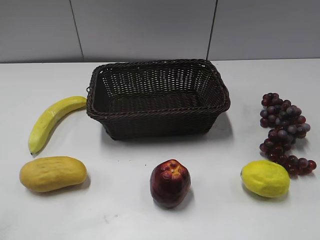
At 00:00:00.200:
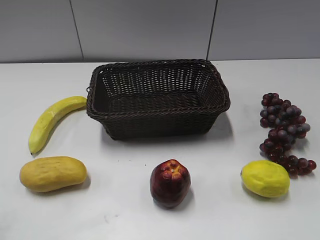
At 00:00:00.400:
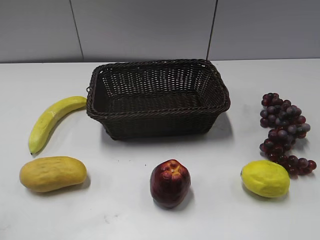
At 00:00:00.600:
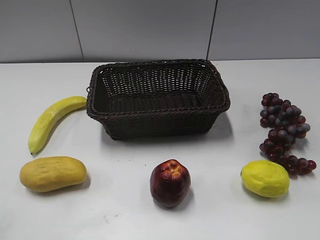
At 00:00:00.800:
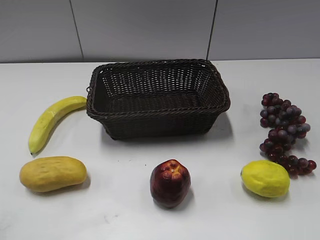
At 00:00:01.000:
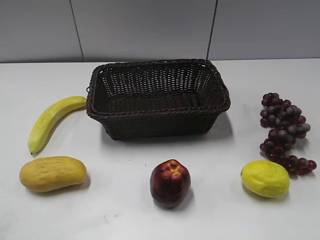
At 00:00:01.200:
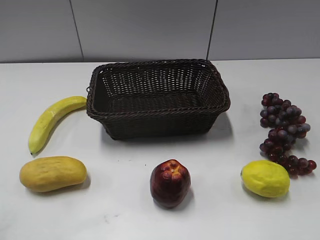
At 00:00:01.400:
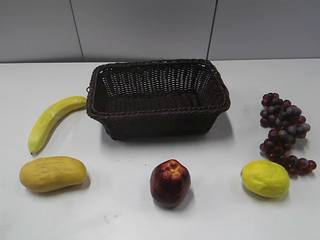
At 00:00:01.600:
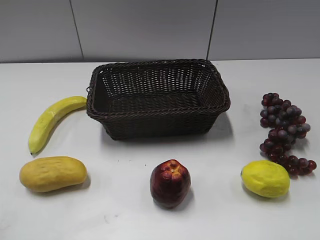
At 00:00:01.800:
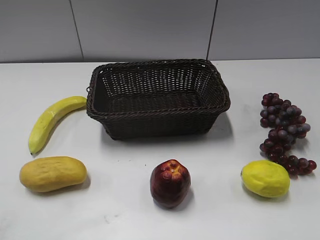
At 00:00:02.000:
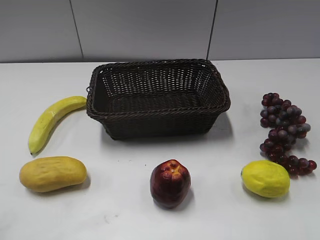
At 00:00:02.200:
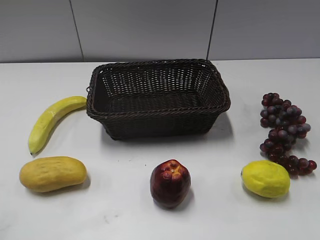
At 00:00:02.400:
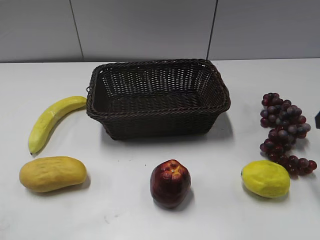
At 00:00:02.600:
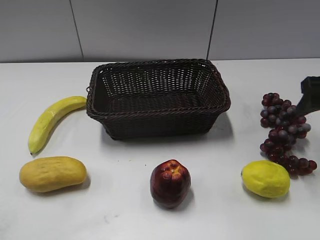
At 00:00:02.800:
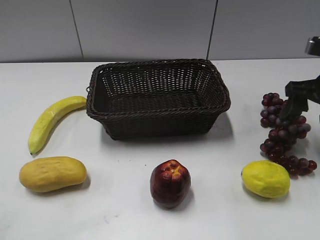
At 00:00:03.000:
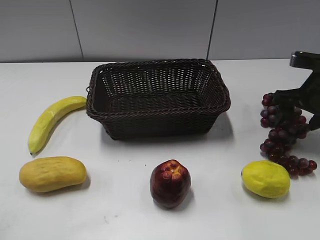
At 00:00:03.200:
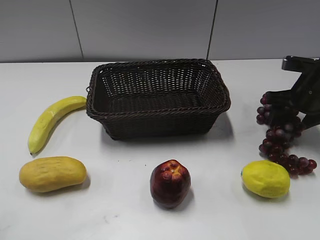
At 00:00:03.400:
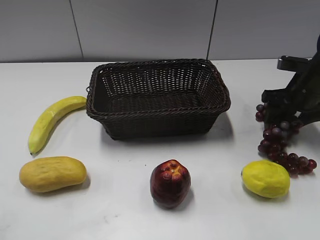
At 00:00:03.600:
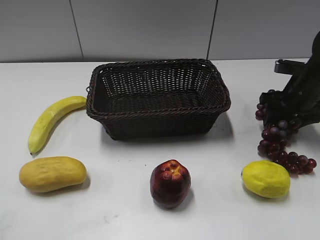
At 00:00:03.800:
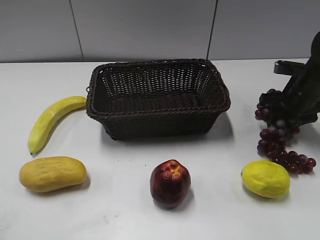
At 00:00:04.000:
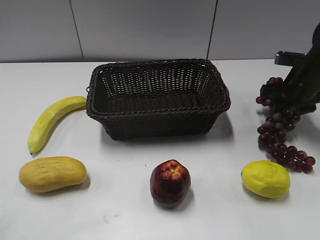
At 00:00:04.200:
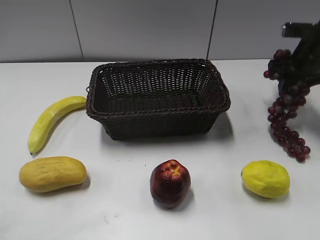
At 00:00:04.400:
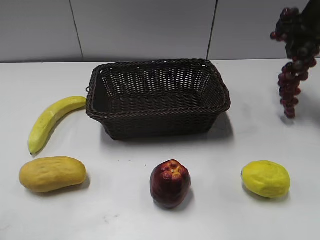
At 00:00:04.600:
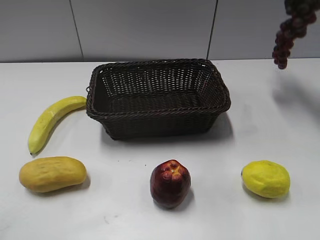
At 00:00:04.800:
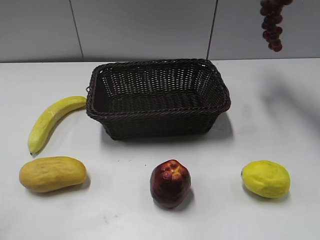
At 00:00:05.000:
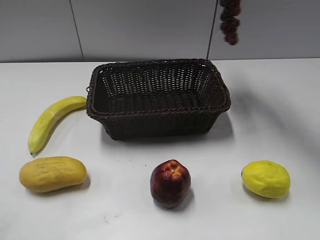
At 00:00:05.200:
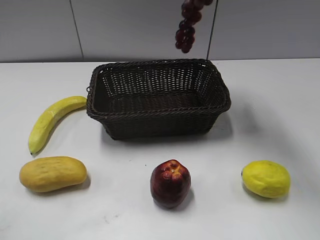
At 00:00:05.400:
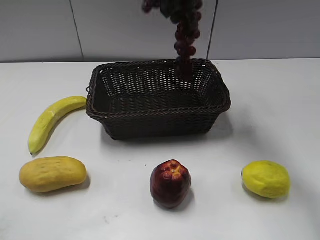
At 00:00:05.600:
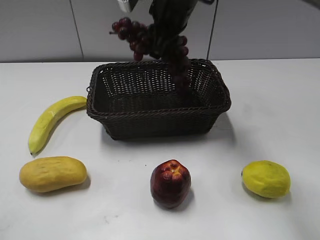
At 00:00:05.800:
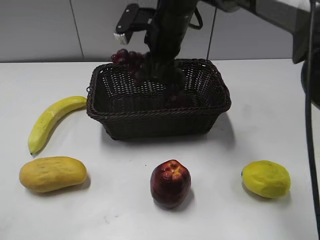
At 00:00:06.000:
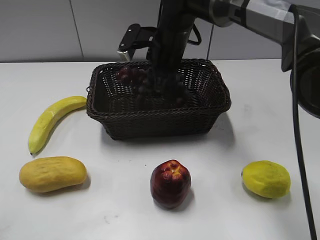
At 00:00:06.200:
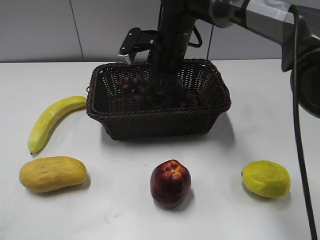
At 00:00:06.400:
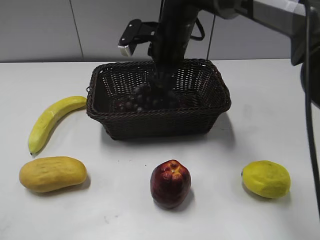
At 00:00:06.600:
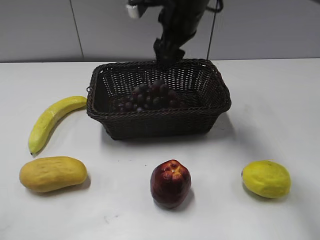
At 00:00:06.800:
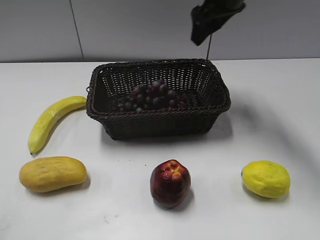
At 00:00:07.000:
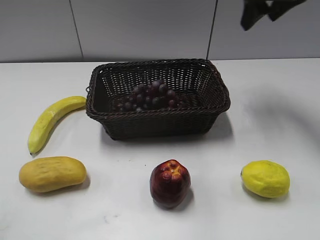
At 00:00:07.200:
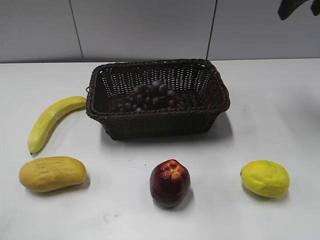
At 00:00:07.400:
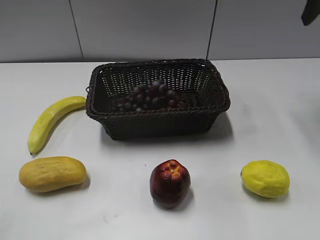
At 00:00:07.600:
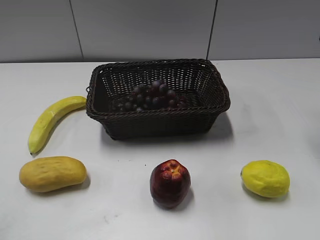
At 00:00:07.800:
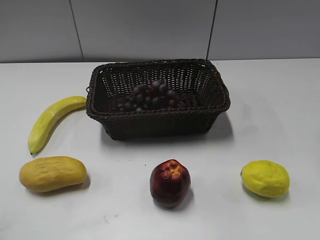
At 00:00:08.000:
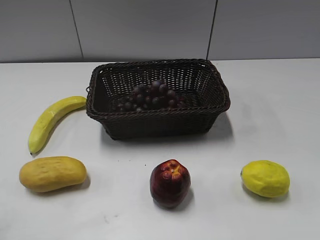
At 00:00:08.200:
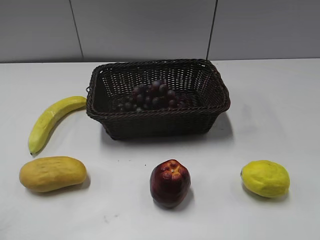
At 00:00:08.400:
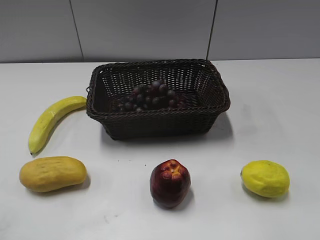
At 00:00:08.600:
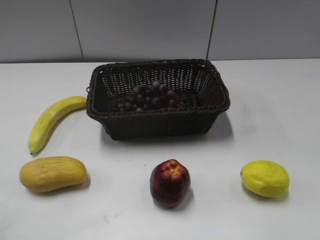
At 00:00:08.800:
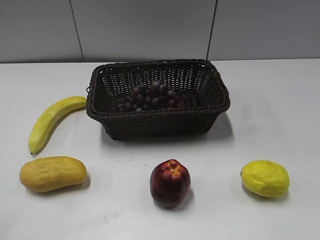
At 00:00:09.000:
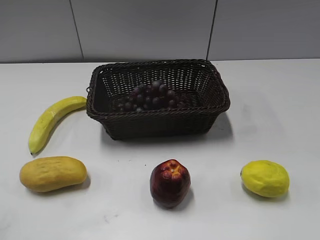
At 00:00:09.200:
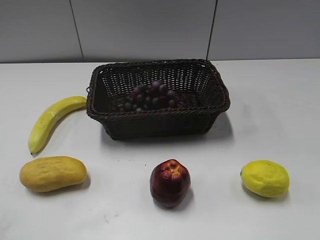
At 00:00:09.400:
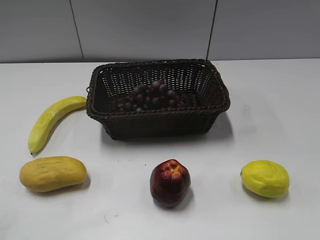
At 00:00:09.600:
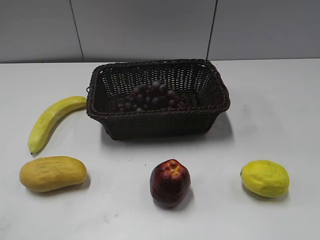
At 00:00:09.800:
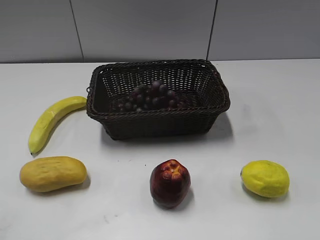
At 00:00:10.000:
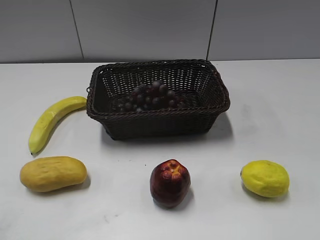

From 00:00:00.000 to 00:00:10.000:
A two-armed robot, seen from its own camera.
Step, from 00:00:02.400 to 00:00:03.600: Grasp the grape with right gripper.
Step, from 00:00:03.800 to 00:00:06.200: Place the grape in the basket with right gripper.
From 00:00:01.400 to 00:00:02.800: The right gripper is displaced forward by some 30 cm.
From 00:00:02.800 to 00:00:04.200: The right gripper goes roughly 10 cm forward, and closes up.
From 00:00:04.200 to 00:00:05.800: The right gripper shifts approximately 30 cm to the left.
From 00:00:05.800 to 00:00:07.200: The right gripper goes about 30 cm to the right and upward, and opens its fingers.
From 00:00:07.200 to 00:00:08.600: The right gripper moves backward, approximately 35 cm.

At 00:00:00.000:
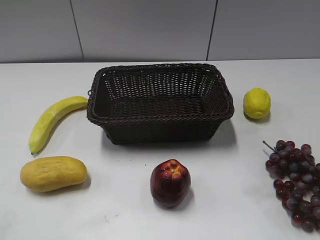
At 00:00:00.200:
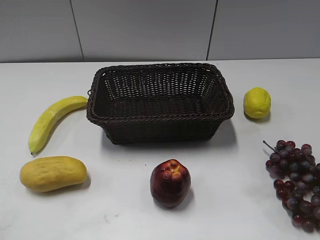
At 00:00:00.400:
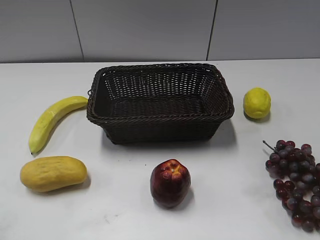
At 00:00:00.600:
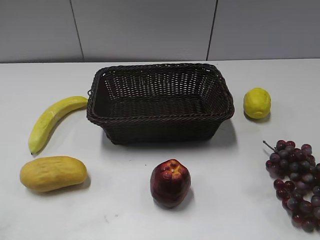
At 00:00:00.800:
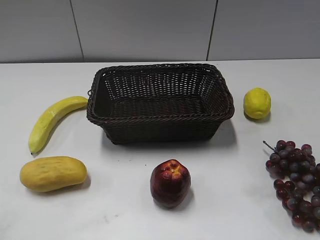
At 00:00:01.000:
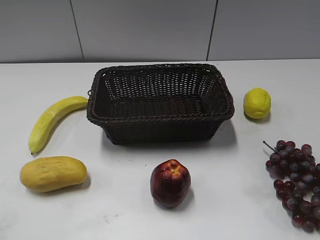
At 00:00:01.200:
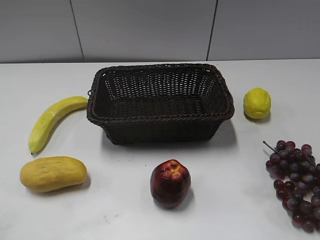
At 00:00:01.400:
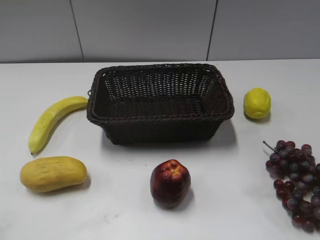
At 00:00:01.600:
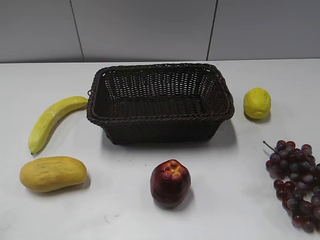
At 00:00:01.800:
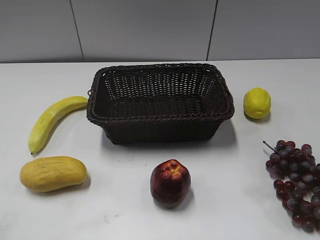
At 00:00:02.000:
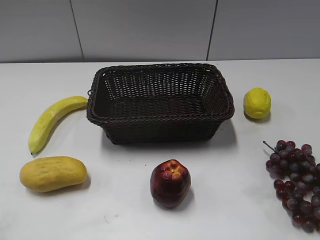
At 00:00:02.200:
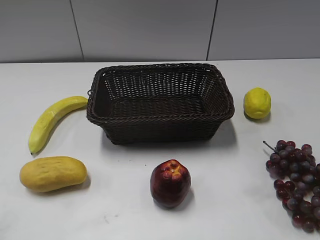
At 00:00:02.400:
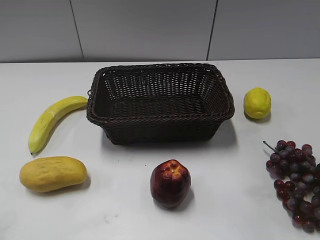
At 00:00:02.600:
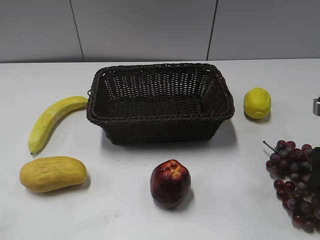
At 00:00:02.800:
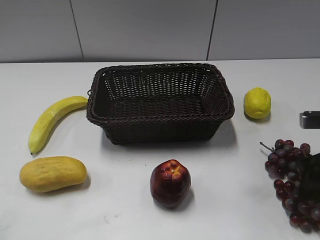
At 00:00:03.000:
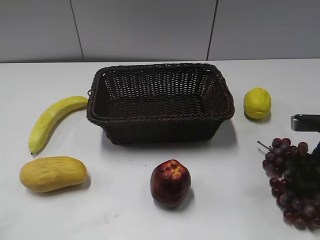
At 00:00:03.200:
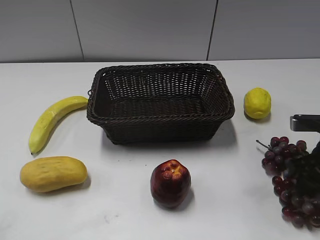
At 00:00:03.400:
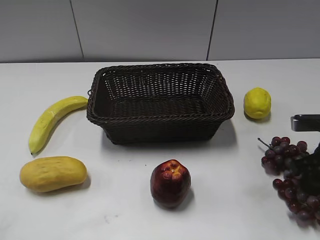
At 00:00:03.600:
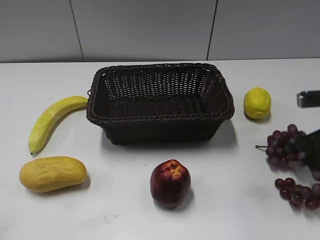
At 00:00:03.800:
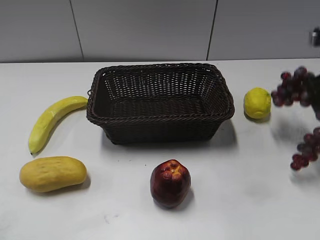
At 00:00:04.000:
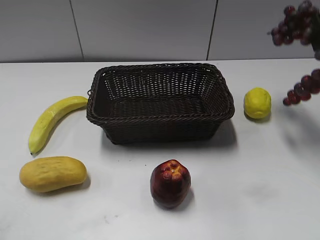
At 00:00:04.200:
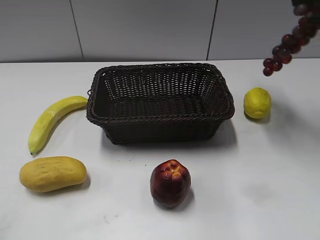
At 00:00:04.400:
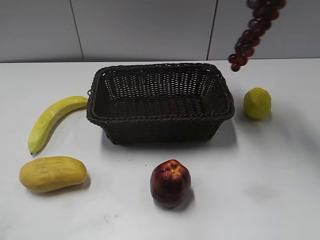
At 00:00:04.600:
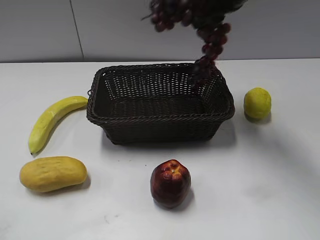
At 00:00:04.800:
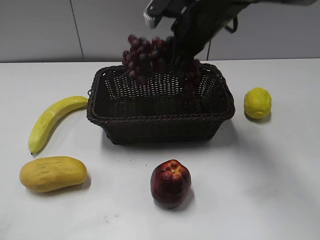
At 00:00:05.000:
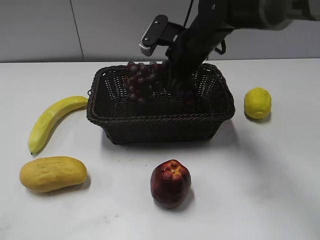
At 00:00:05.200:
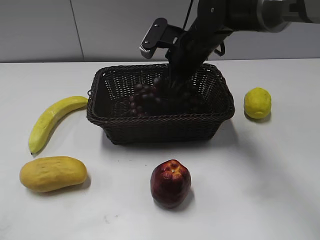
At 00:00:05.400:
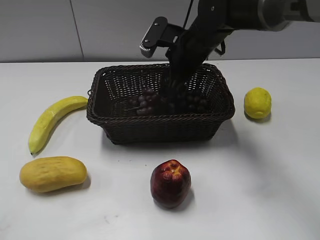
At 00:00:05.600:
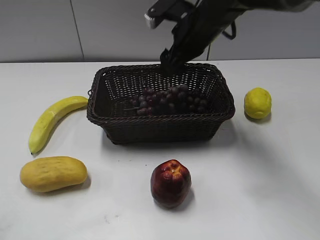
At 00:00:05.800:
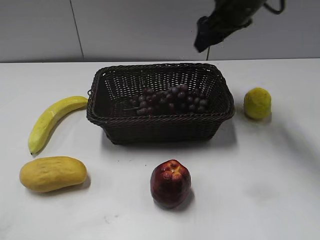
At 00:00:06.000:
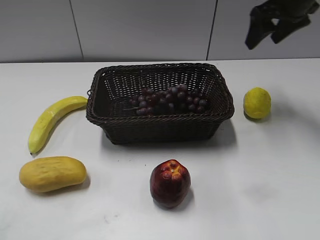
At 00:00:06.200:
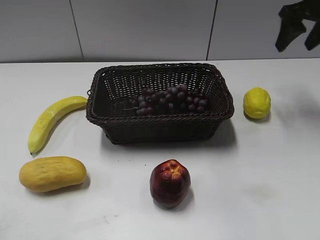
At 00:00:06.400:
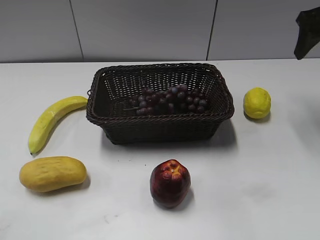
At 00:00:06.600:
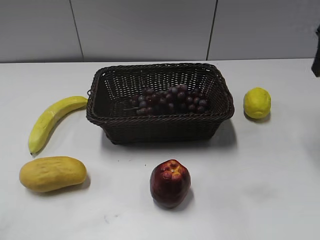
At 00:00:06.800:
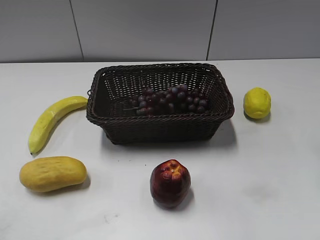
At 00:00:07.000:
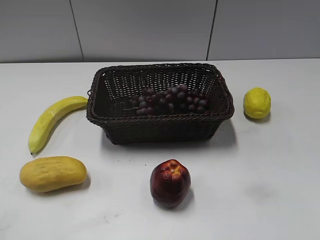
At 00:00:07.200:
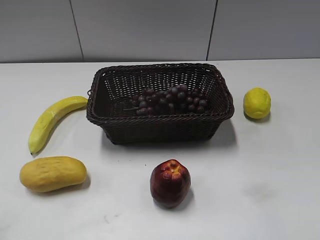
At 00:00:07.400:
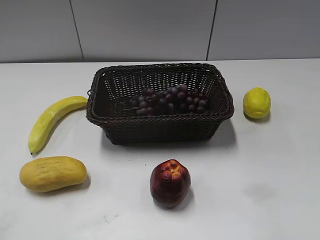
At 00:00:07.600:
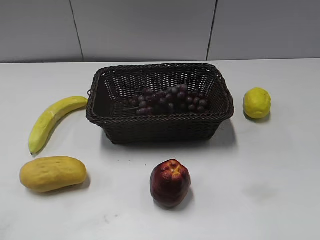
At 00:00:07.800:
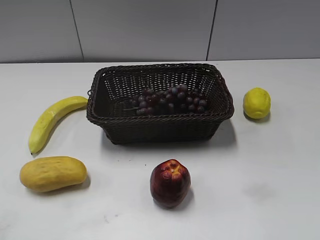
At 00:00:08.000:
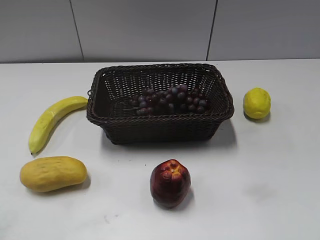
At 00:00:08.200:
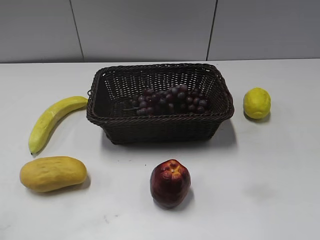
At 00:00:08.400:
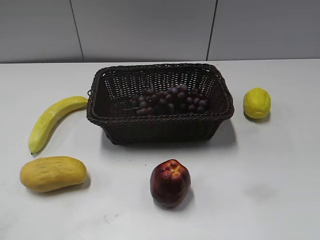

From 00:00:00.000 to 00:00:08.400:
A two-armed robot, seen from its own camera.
Step, from 00:00:02.600 to 00:00:03.400: Grasp the grape with right gripper.
Step, from 00:00:03.600 to 00:00:05.200: Place the grape in the basket with right gripper.
From 00:00:01.400 to 00:00:02.800: The right gripper heads forward and downward, covering roughly 30 cm.
From 00:00:02.800 to 00:00:04.200: The right gripper is displaced upward and forward by some 25 cm, and closes up.
From 00:00:04.200 to 00:00:05.600: The right gripper moves to the left and downward, approximately 25 cm, and opens its fingers.
From 00:00:05.600 to 00:00:07.000: The right gripper moves to the right and backward, some 30 cm.
